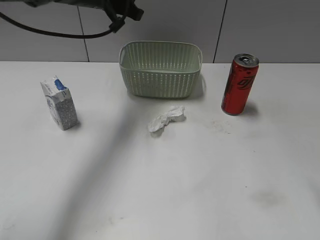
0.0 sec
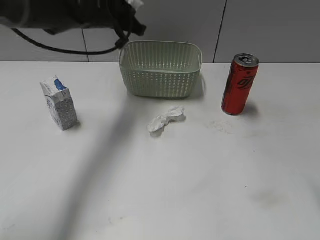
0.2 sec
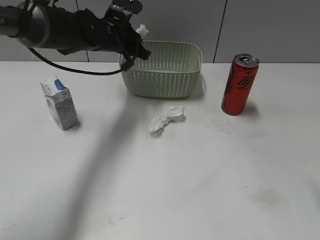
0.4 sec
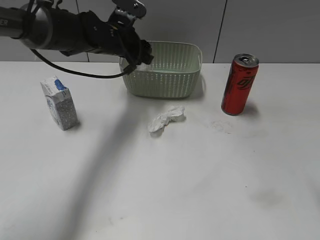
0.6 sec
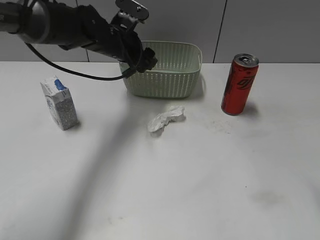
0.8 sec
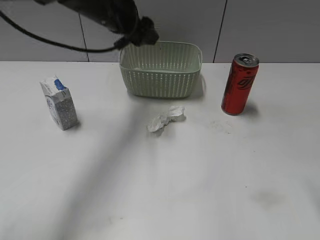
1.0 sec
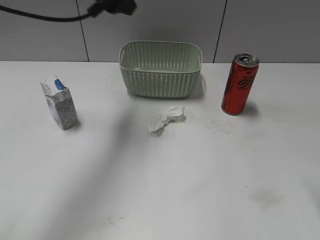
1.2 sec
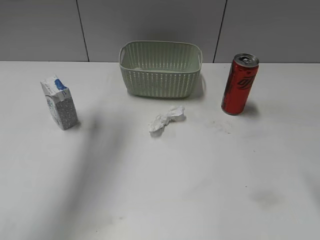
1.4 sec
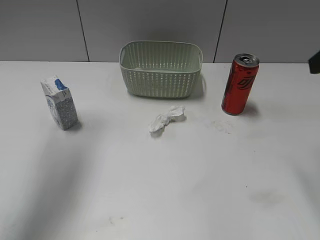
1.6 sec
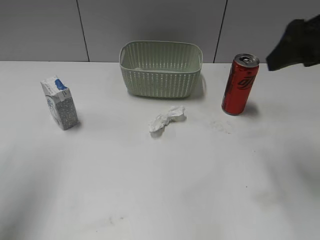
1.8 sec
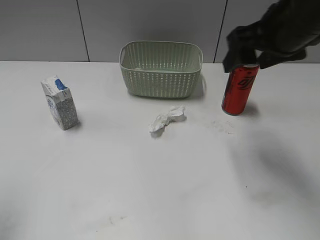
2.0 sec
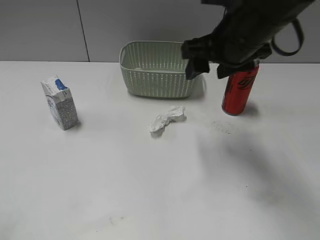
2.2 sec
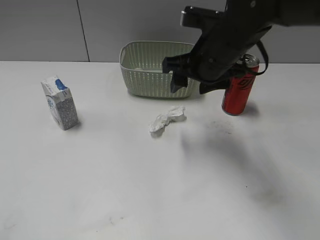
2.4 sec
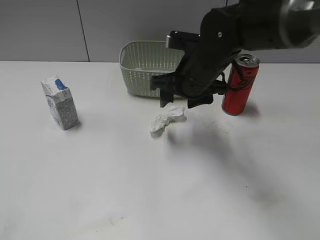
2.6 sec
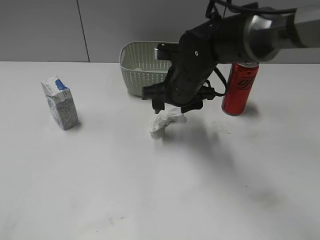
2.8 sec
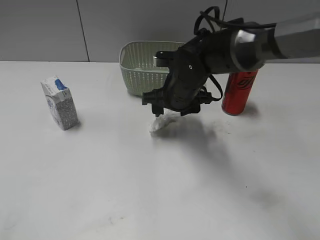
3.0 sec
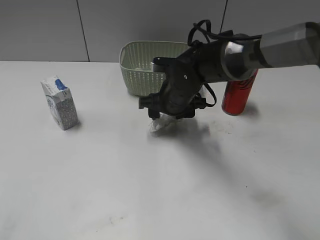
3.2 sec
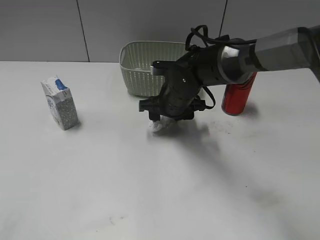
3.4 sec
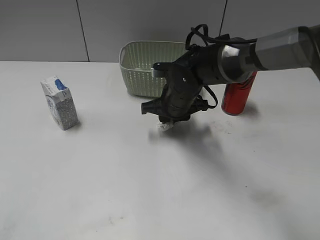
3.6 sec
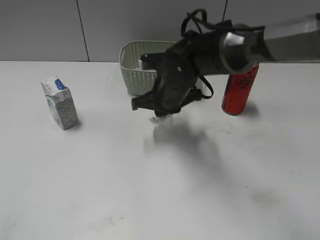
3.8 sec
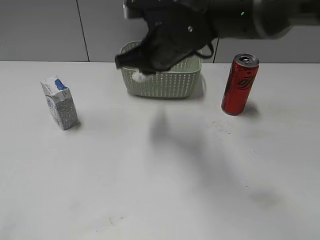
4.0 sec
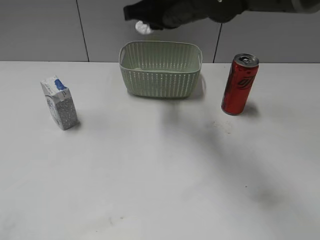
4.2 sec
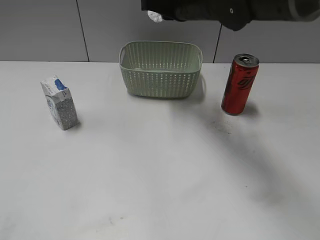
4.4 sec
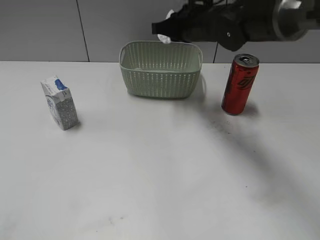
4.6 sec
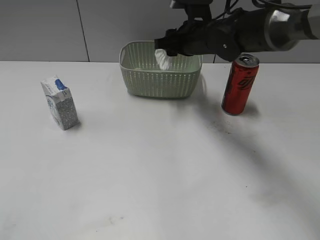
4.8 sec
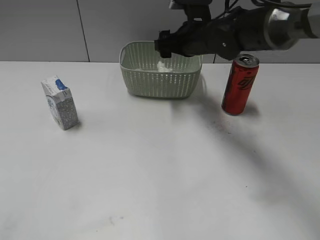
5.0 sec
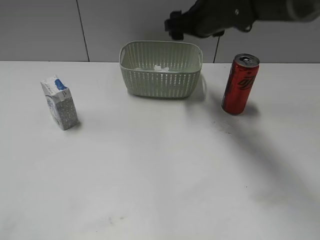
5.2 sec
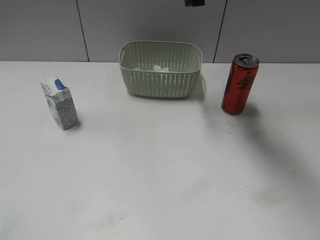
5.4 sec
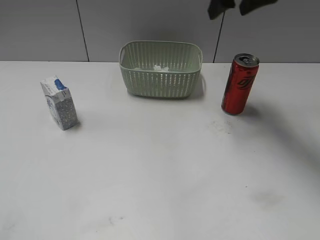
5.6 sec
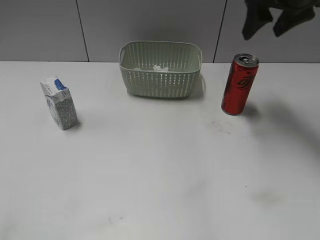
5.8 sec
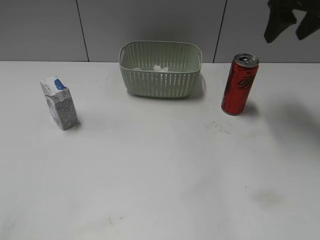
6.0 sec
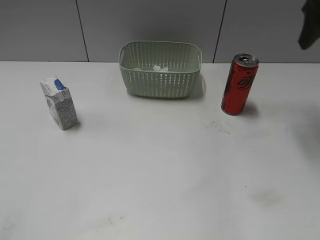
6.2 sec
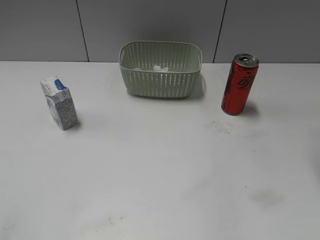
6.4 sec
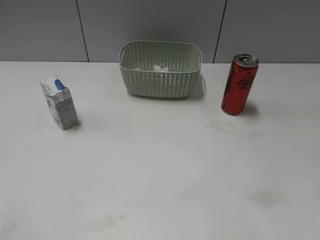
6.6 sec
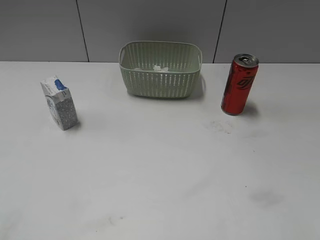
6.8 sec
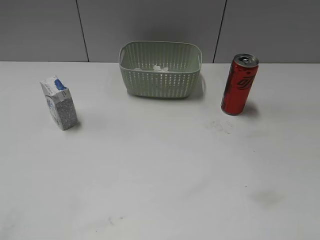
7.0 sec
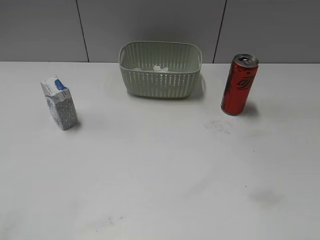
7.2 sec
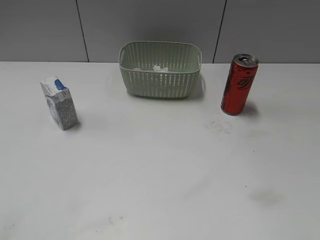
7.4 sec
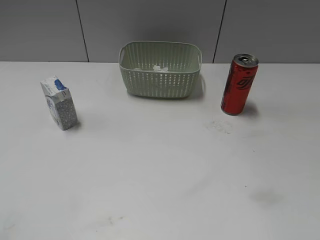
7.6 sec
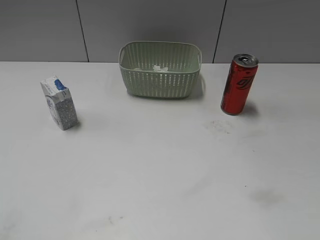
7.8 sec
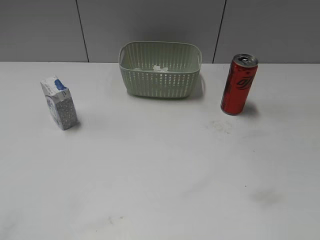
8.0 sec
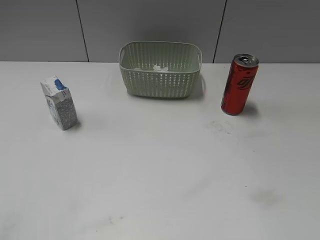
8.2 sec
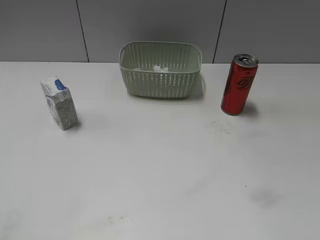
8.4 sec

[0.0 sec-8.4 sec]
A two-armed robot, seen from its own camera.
Step, 0.0 sec to 0.6 sec: Place the waste paper in the basket with left gripper.
Step, 0.8 sec to 3.8 sec: Grasp the waste paper with right gripper.
Step, 4.0 sec to 5.2 sec: Place the waste paper in the basket with right gripper.
0.0 sec to 1.4 sec: The left gripper travels upward, backward and to the left by some 15 cm, and opens its fingers.
1.4 sec to 2.8 sec: The right gripper goes about 35 cm to the left, downward and forward. Meanwhile the left gripper heads backward and to the left, covering roughly 40 cm.
2.8 sec to 4.2 sec: The right gripper is displaced upward by some 15 cm, and closes up.
4.2 sec to 5.6 sec: The right gripper shifts some 15 cm to the right and upward, and opens its fingers.
5.6 sec to 7.0 sec: The right gripper is displaced backward and to the right by roughly 35 cm.

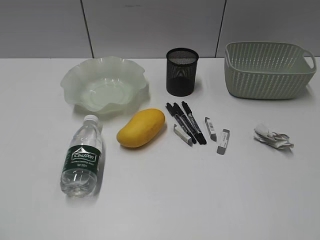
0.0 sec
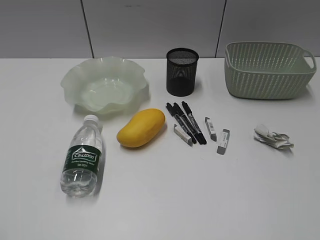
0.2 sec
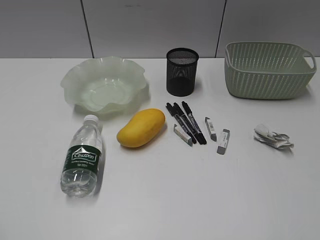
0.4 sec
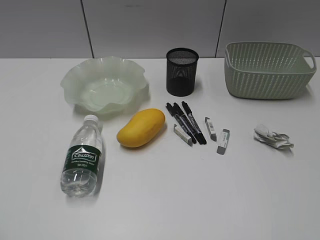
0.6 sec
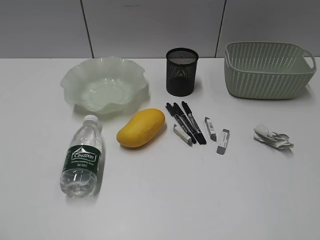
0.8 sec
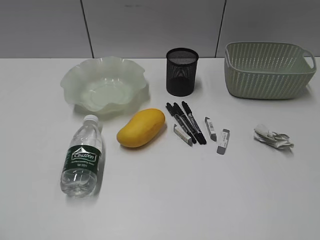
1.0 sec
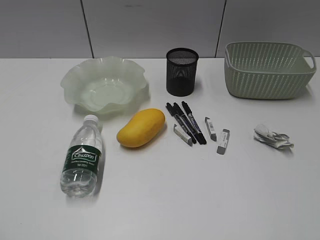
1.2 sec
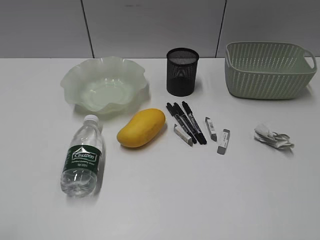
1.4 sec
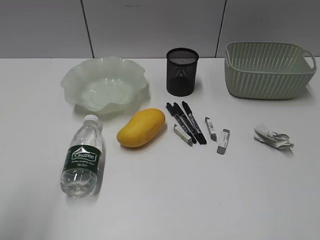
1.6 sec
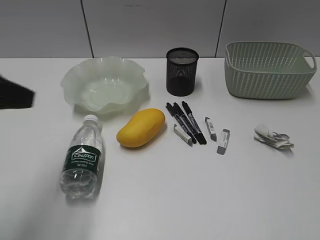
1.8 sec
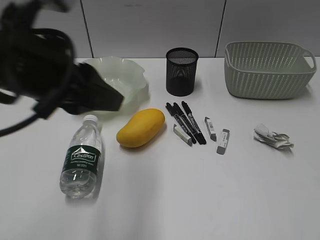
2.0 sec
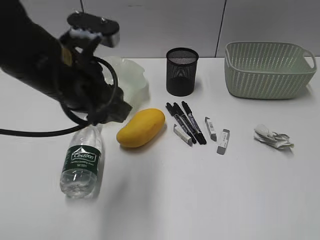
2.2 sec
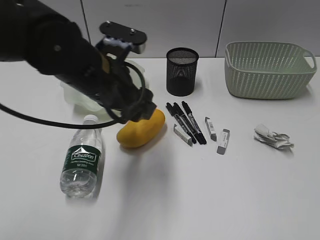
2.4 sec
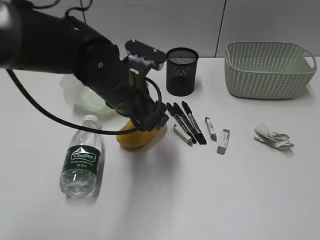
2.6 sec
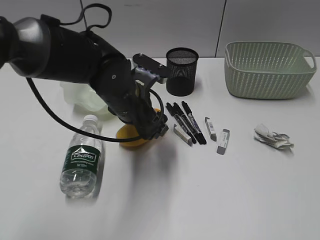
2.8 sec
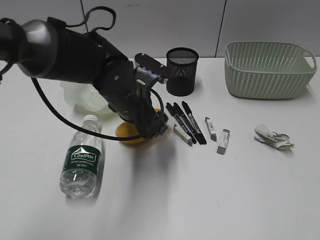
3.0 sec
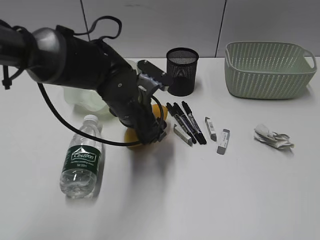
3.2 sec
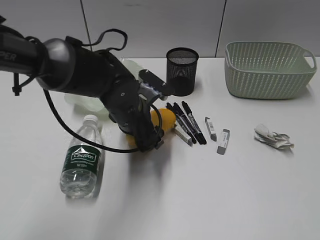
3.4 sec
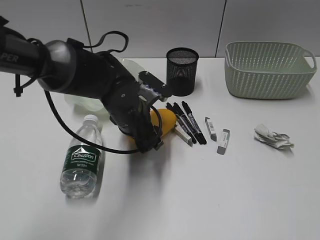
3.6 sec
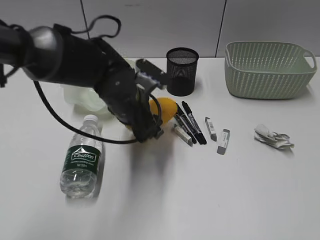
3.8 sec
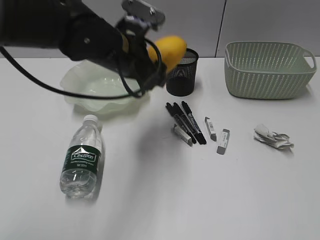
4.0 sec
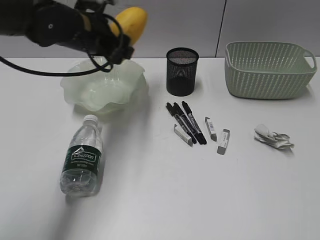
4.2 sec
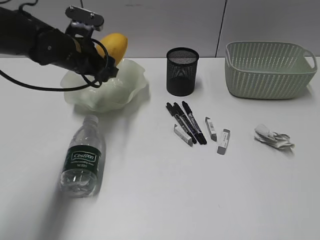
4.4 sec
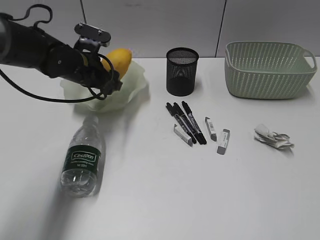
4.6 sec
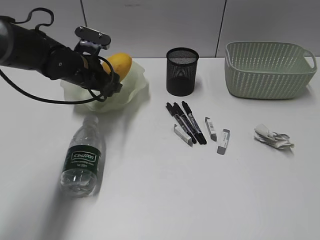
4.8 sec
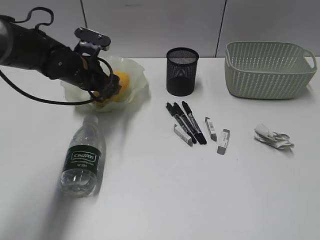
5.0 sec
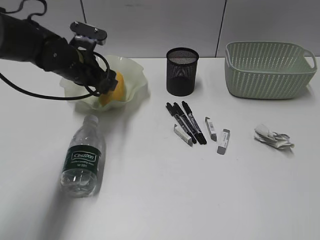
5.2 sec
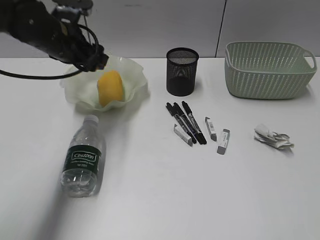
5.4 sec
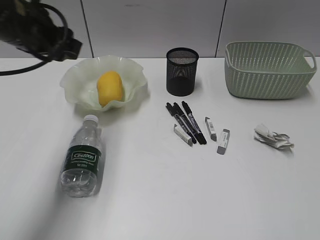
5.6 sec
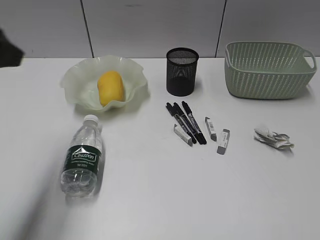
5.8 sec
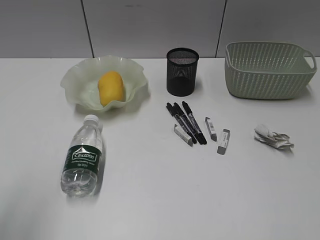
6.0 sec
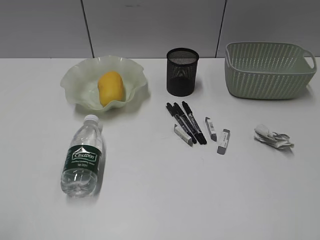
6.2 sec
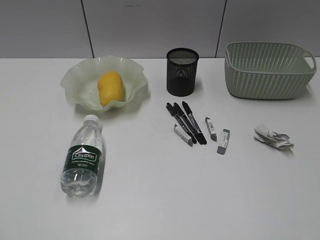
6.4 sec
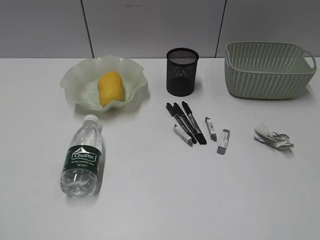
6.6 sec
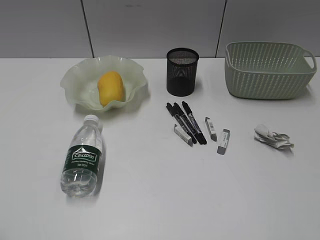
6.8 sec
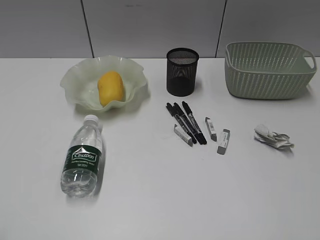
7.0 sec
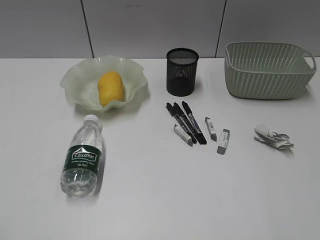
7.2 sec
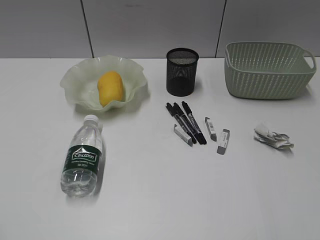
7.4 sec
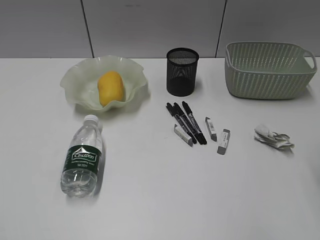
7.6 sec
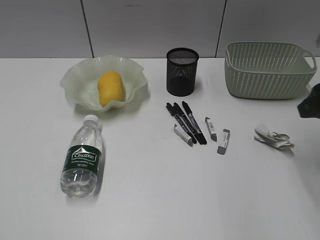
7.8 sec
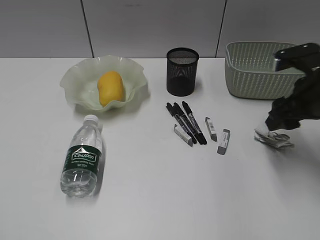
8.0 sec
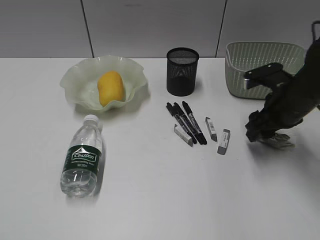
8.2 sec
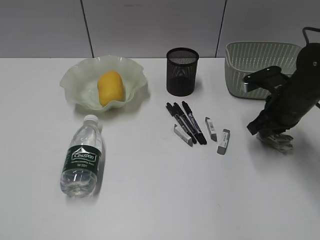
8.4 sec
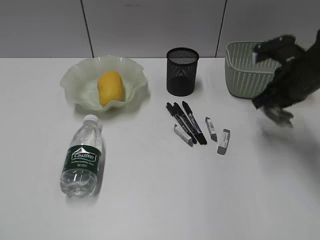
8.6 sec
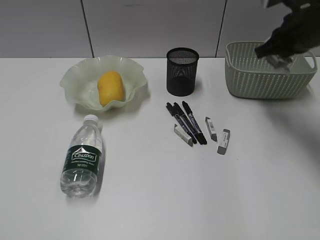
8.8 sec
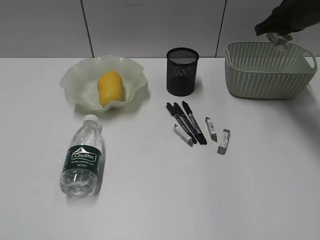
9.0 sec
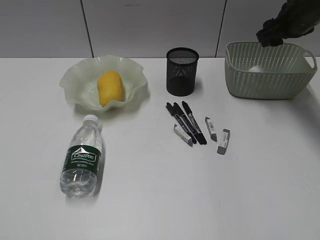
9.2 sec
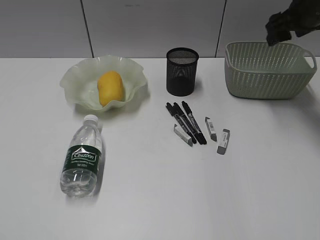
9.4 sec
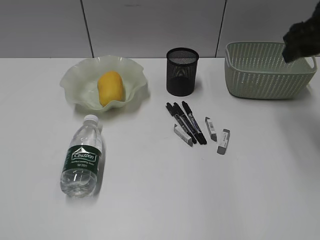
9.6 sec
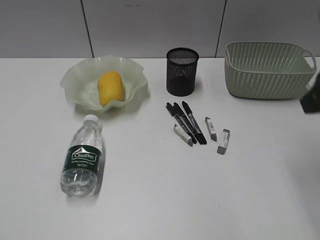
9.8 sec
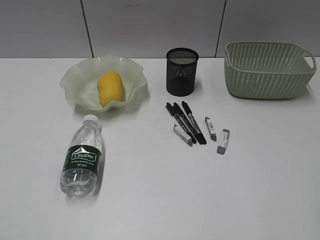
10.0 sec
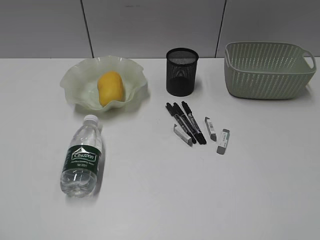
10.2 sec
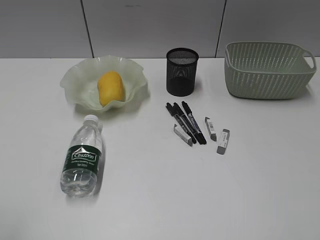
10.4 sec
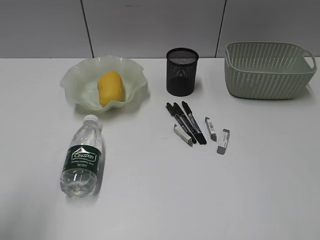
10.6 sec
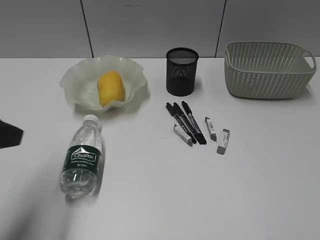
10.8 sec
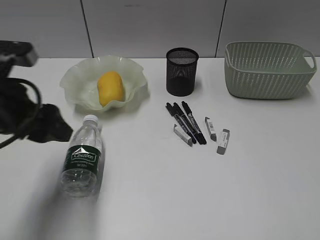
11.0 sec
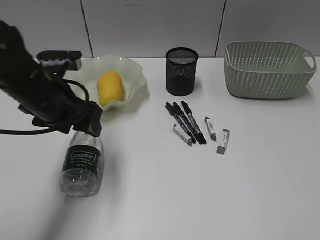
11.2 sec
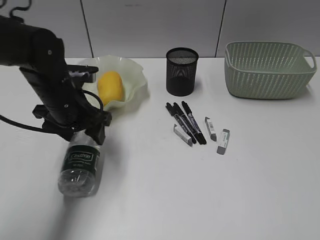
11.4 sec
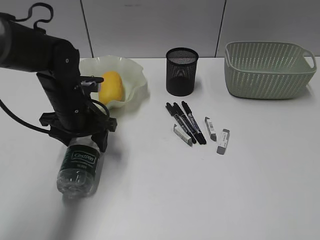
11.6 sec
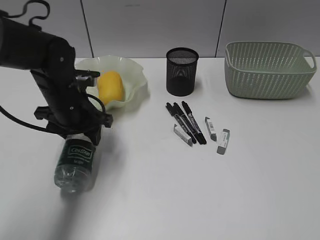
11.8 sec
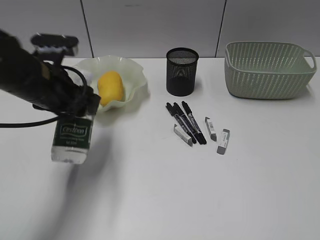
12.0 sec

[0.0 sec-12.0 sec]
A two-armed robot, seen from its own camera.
Step, 1.4 sec to 3.4 sec: Grasp the mango with left gripper.
Step, 3.6 sec to 5.2 sec: Place the mango in the plate with left gripper.
Step, 5.4 sec to 8.4 sec: Grasp the waste paper with right gripper.
Step, 8.6 sec to 9.2 sec: Place the waste paper in the basket with right gripper.
Step, 9.4 sec to 11.6 sec: Grasp the bottle with left gripper.
1.6 sec to 3.0 sec: The left gripper moves to the right, forward and downward, roughly 35 cm, and opens its fingers.
3.0 sec to 4.4 sec: The left gripper is displaced to the left and forward by approximately 15 cm, and moves about 10 cm upward and comes back.
4.4 sec to 6.0 sec: The left gripper goes approximately 40 cm backward, upward and to the left.
6.0 sec to 7.6 sec: The left gripper heads backward and downward, covering roughly 10 cm.
7.6 sec to 9.0 sec: The right gripper is displaced forward by some 25 cm, and closes.
9.0 sec to 10.4 sec: The right gripper heads backward, covering about 40 cm, and opens up.
10.4 sec to 12.0 sec: The left gripper travels forward and to the right by roughly 30 cm, and opens its fingers.

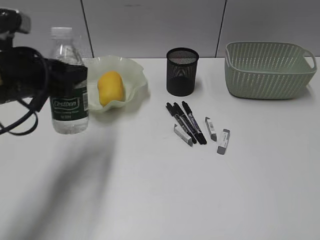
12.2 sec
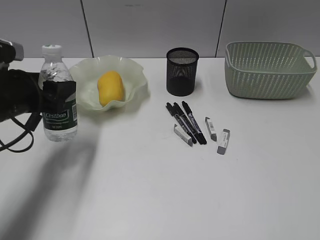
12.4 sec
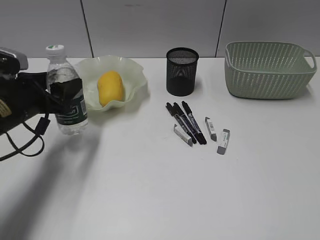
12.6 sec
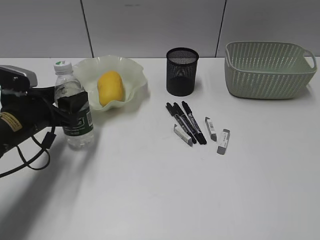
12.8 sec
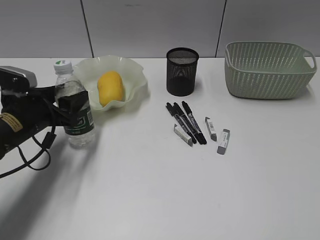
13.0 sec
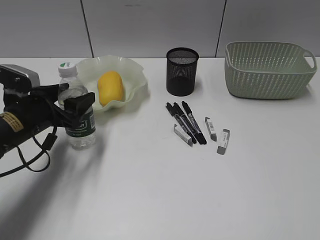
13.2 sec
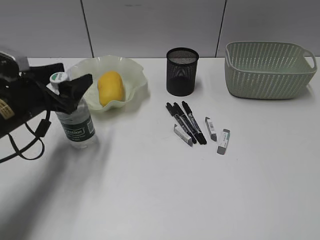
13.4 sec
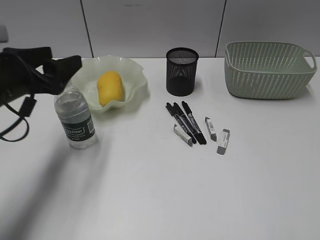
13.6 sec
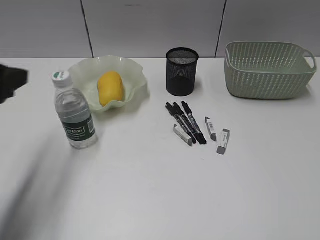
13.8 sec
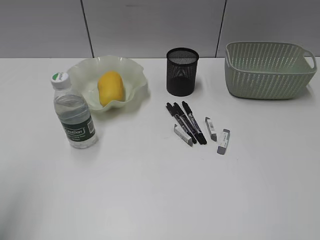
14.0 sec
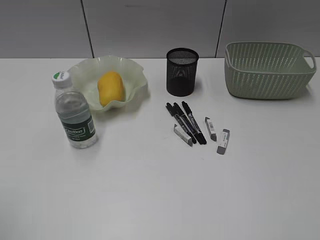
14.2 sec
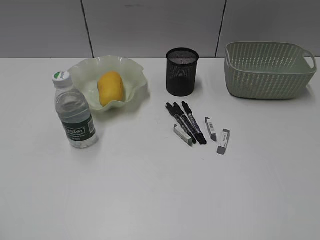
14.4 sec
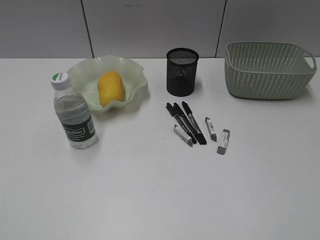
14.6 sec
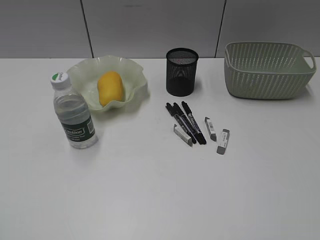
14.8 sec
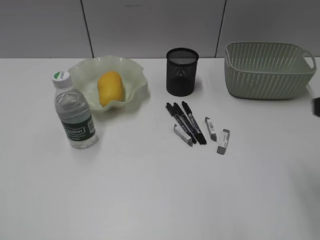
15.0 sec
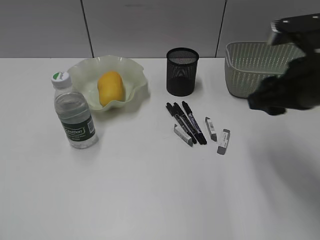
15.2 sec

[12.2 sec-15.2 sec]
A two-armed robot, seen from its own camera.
Step, 12.2 sec to 13.4 sec: Stand the bottle with left gripper.
12.2 sec to 13.8 sec: The left gripper is displaced to the left by roughly 5 cm, and moves some 10 cm downward and comes back.
13.8 sec to 15.2 sec: The right gripper shifts about 30 cm forward and to the left, and opens its fingers; the left gripper heads backward, covering roughly 25 cm.
